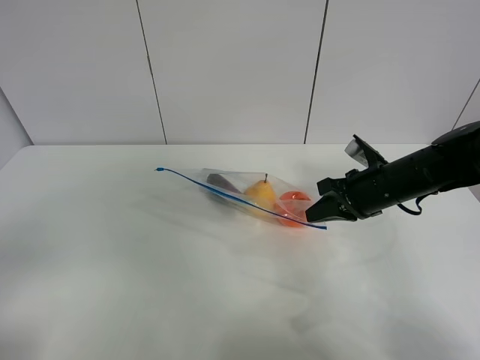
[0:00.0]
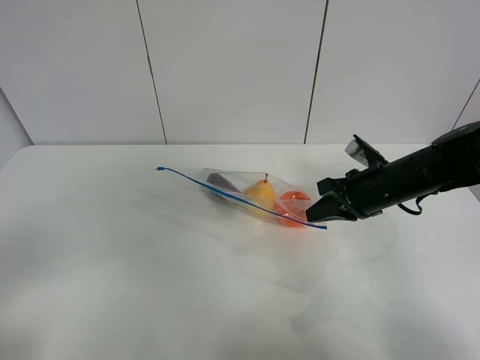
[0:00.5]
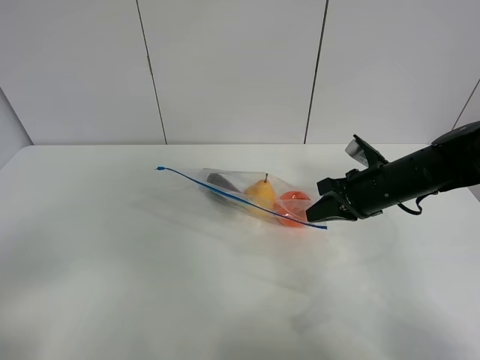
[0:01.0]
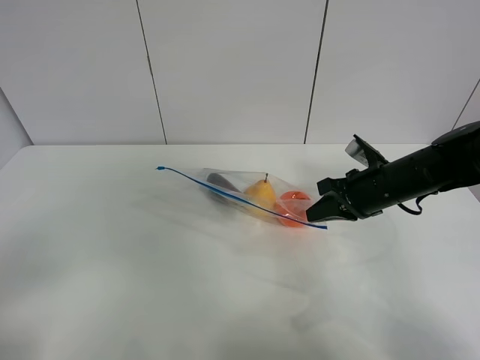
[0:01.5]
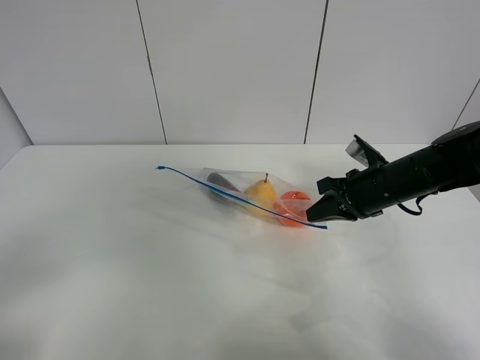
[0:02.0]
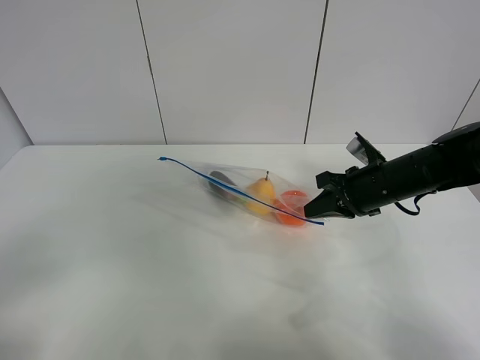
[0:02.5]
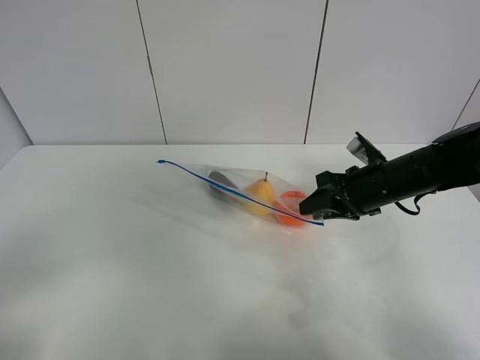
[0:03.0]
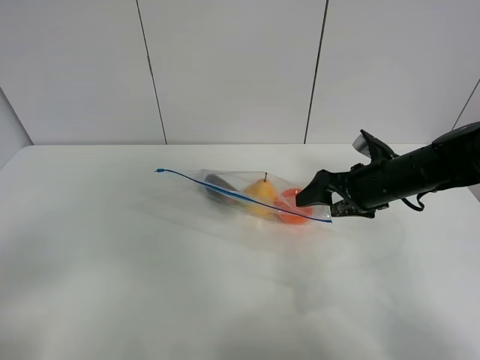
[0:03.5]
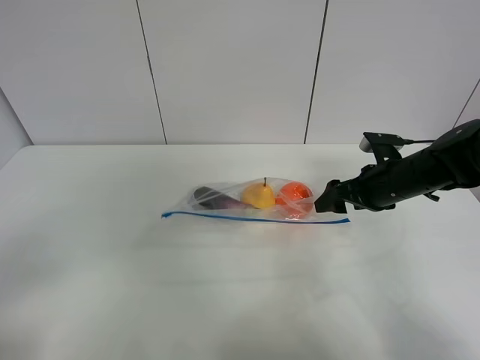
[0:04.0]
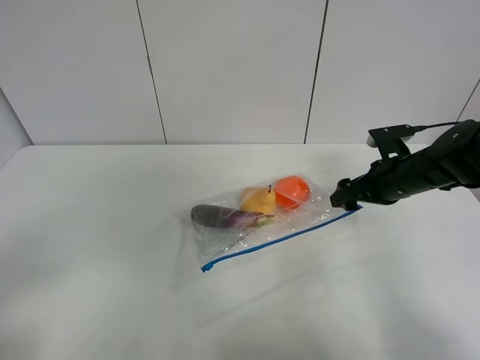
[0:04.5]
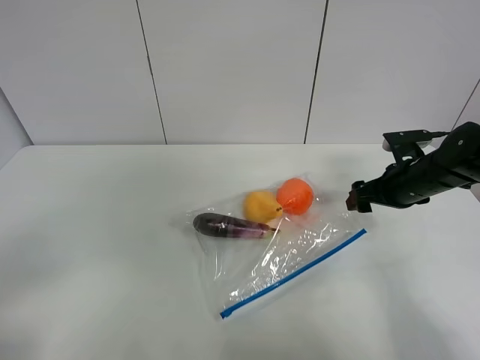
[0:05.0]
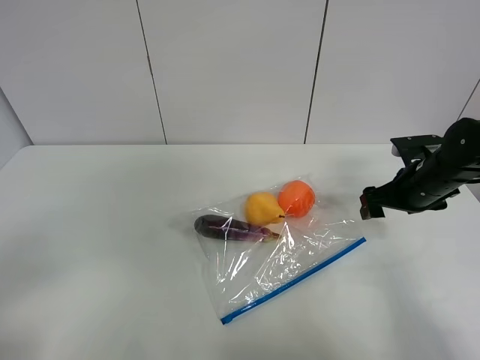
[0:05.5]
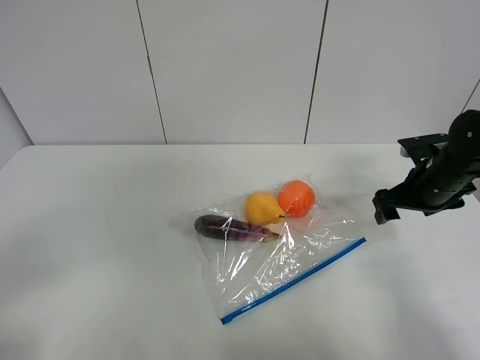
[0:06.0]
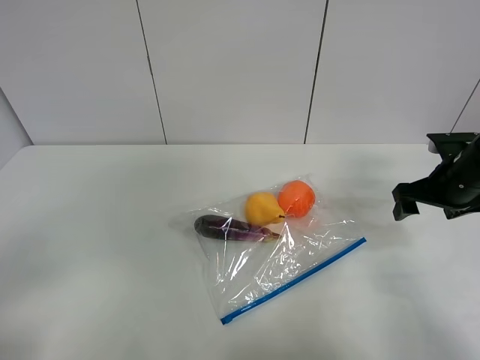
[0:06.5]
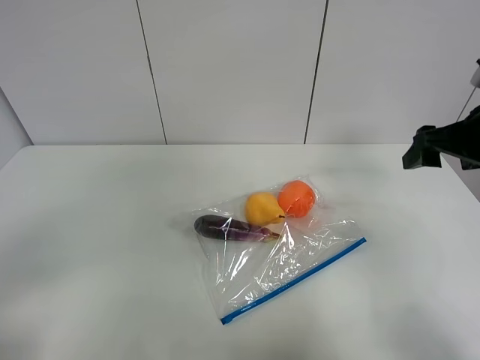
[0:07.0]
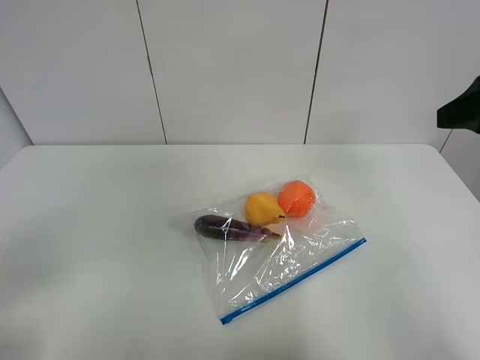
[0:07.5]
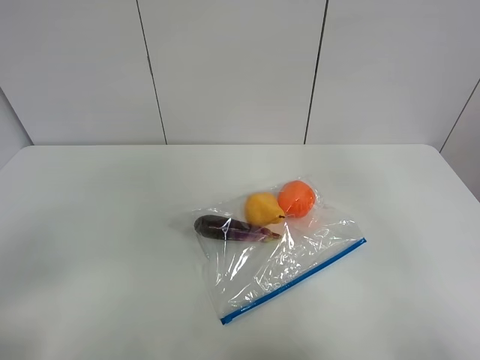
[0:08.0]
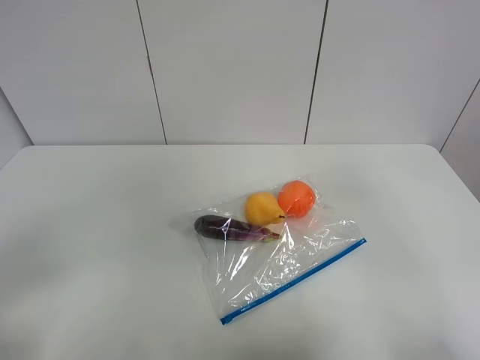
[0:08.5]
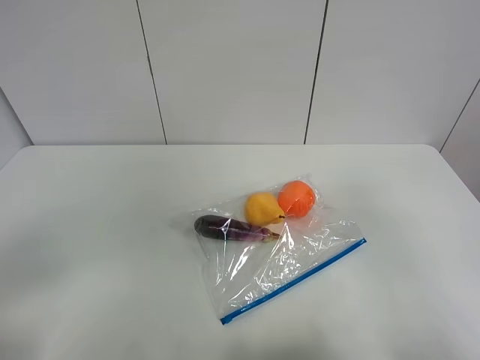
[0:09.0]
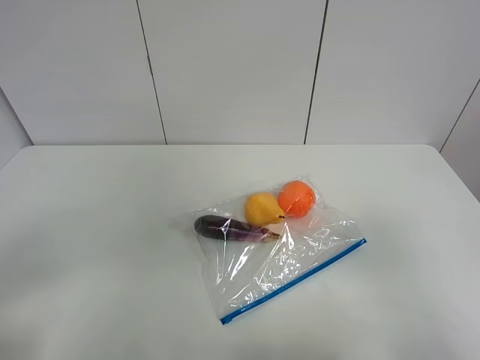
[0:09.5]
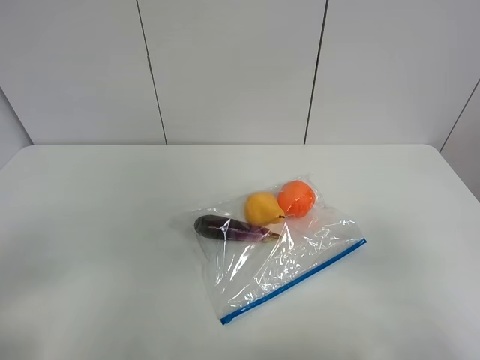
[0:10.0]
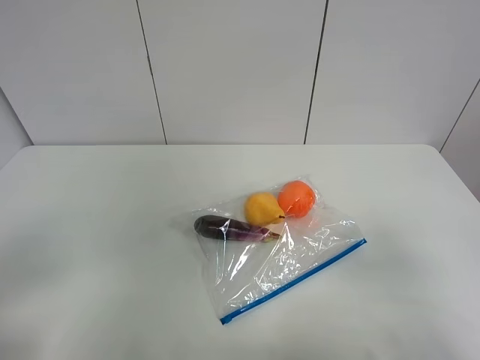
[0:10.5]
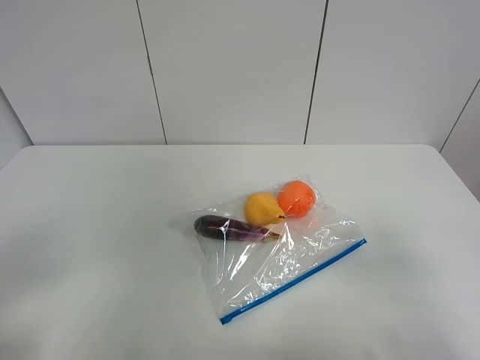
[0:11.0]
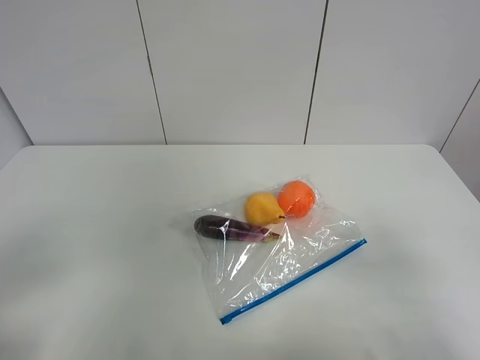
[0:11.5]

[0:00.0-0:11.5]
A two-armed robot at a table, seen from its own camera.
Step, 0:00.0 to 0:05.0: Place the fruit bag with right gripper.
0:02.0 to 0:04.0: The right gripper opens.
0:04.0 to 0:06.0: The right gripper goes some 5 cm to the right.
0:06.0 to 0:07.5: The right gripper travels upward and backward by approximately 25 cm.
0:07.5 to 0:09.5: The right gripper moves backward, about 20 cm.

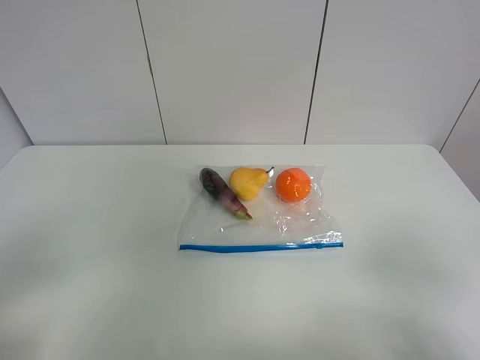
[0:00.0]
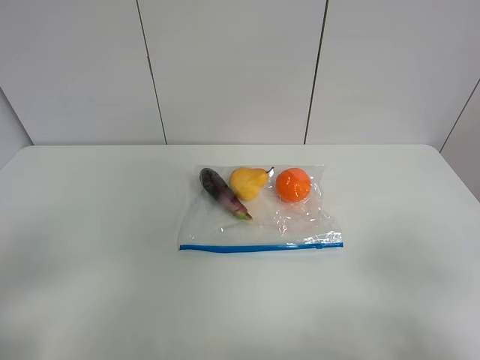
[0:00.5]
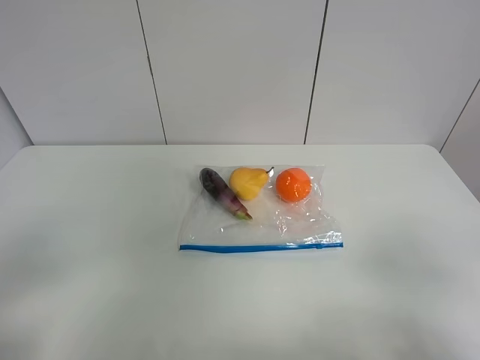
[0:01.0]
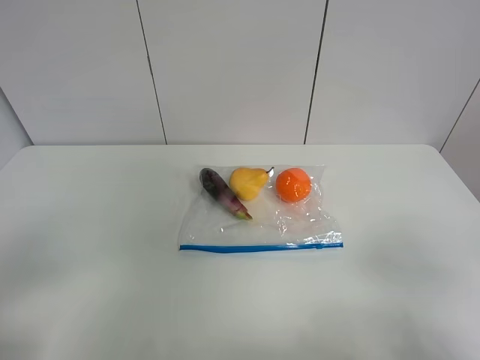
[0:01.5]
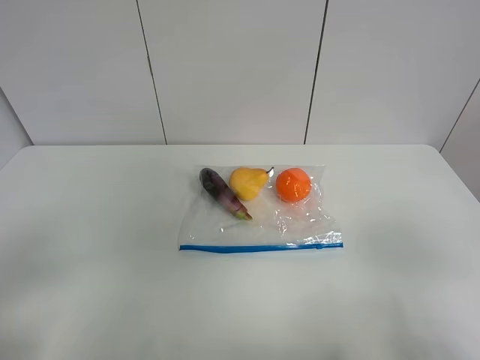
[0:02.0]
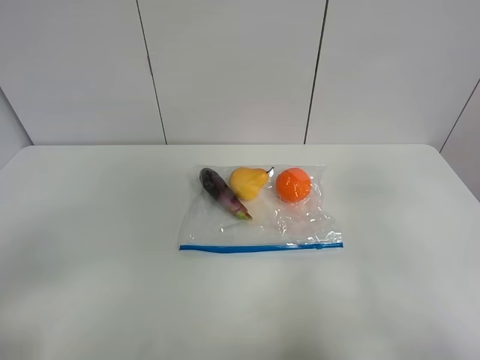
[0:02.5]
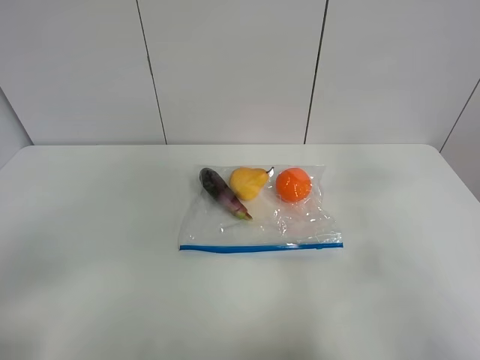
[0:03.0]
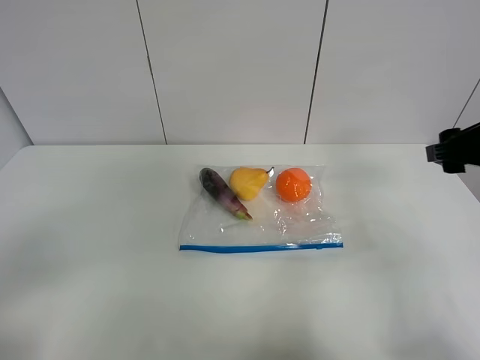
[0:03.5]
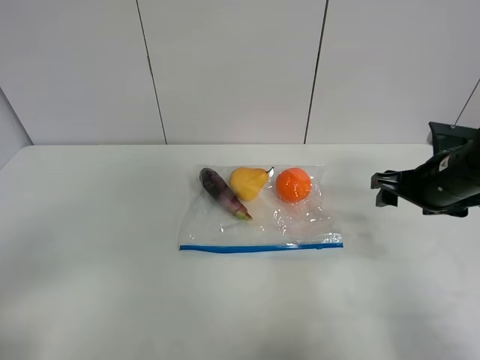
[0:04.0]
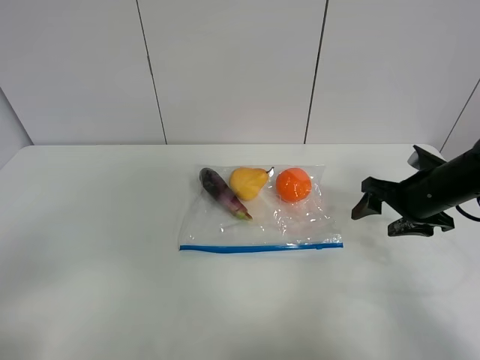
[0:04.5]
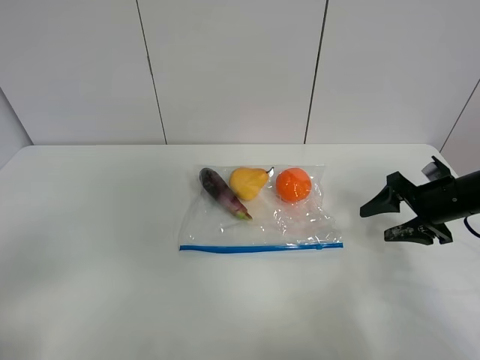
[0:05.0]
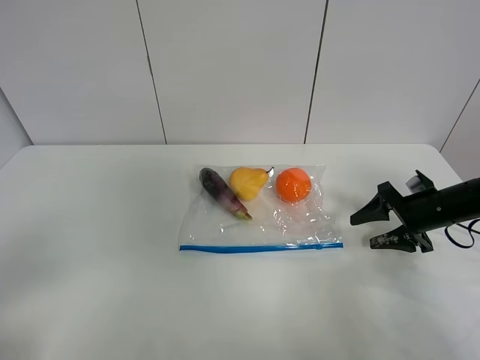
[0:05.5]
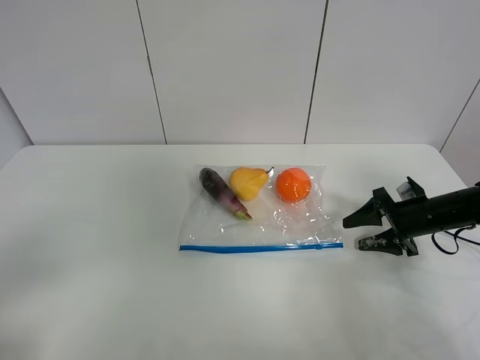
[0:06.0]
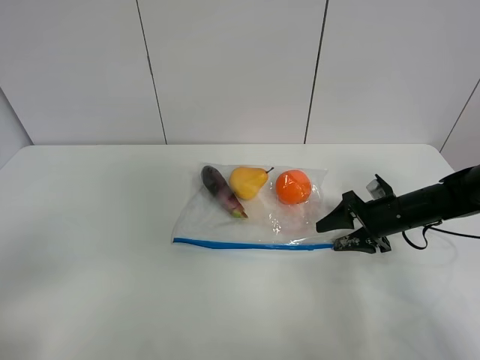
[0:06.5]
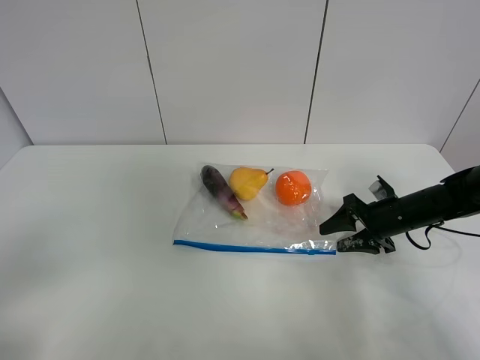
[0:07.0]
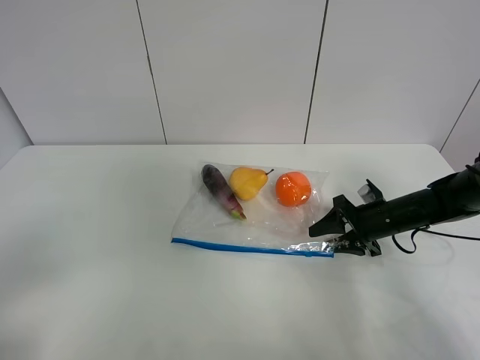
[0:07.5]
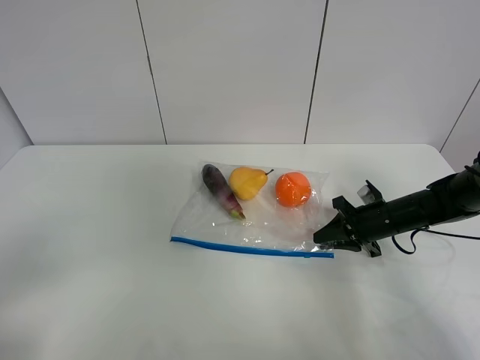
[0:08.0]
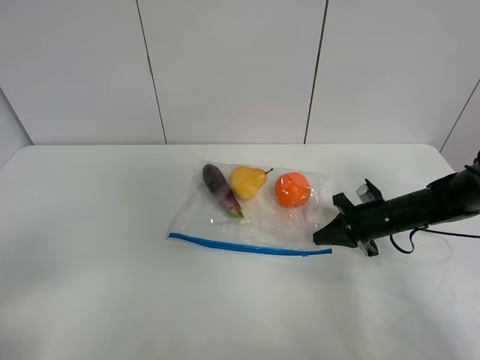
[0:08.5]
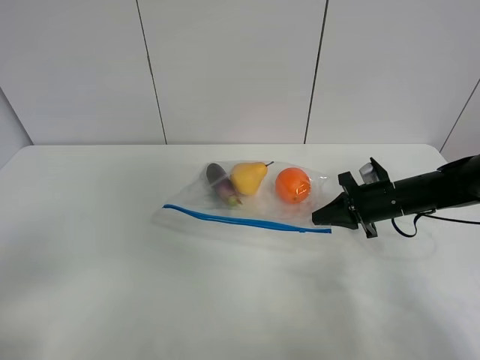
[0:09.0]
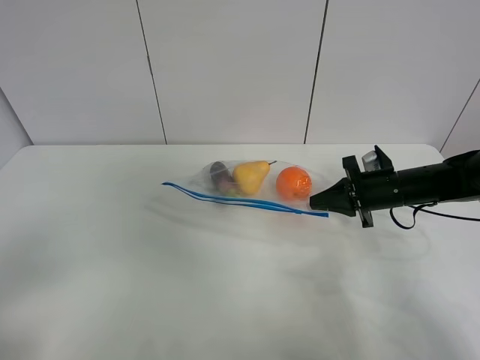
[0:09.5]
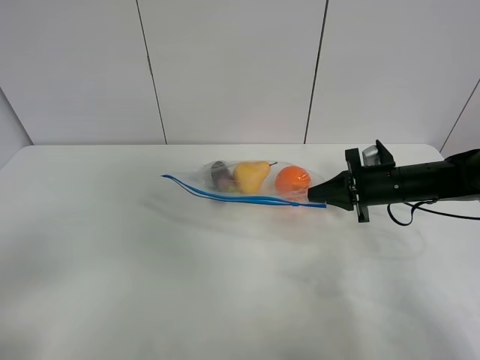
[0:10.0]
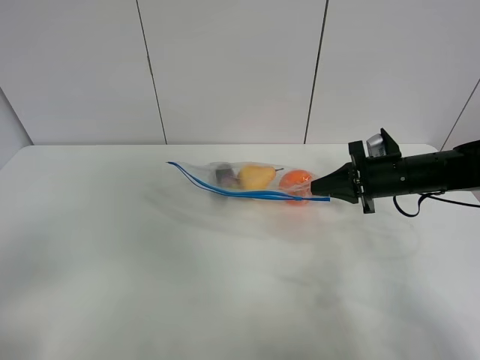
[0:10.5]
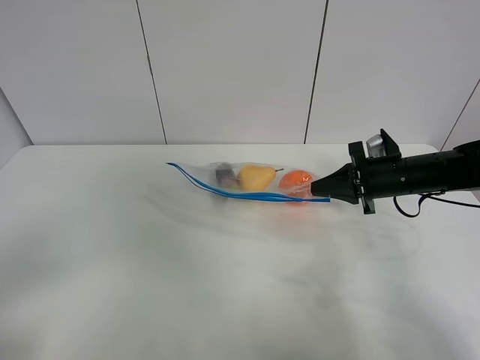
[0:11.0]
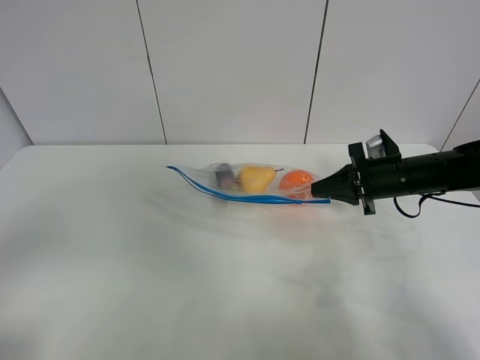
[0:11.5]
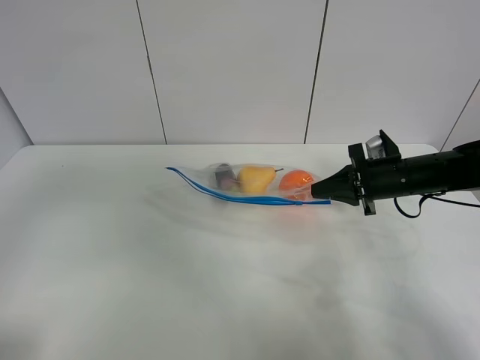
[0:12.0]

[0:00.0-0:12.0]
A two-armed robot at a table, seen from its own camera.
Step, 0:00.0 to 0:08.0: Grasp the fruit bag with right gripper.
Step, 0:08.5 to 0:10.5: Lift the fruit bag with your right gripper.
0:02.0 to 0:04.0: The right gripper goes about 30 cm forward and downward.
0:04.0 to 0:06.0: The right gripper is displaced downward and to the right by about 10 cm.
0:06.0 to 0:08.0: The right gripper moves to the left, roughly 5 cm, and closes its fingers.
0:08.0 to 0:10.0: The right gripper heads upward, covering some 5 cm.
0:10.0 to 0:12.0: The left gripper goes roughly 15 cm forward and upward.

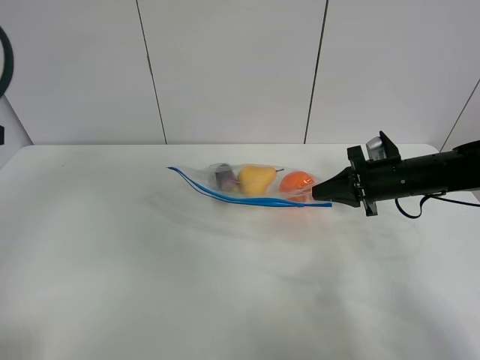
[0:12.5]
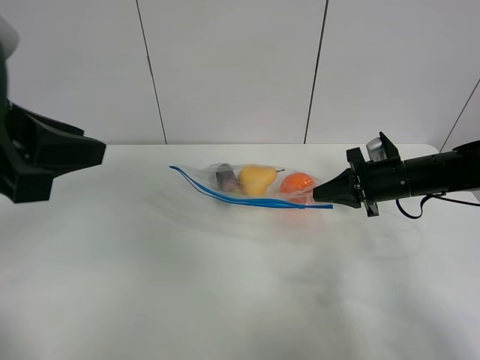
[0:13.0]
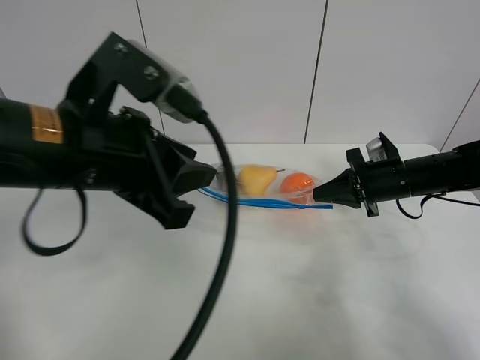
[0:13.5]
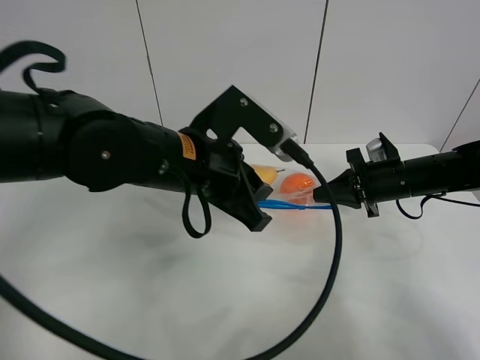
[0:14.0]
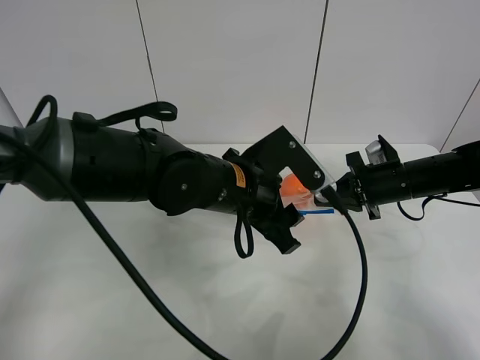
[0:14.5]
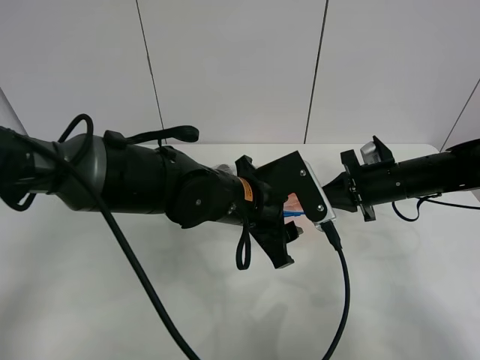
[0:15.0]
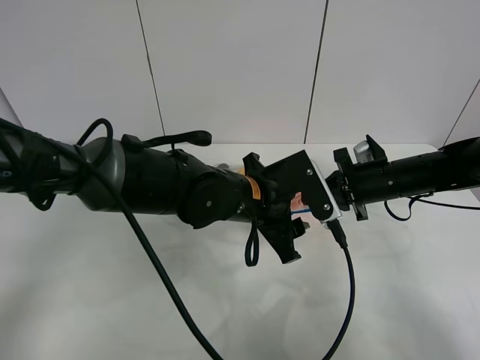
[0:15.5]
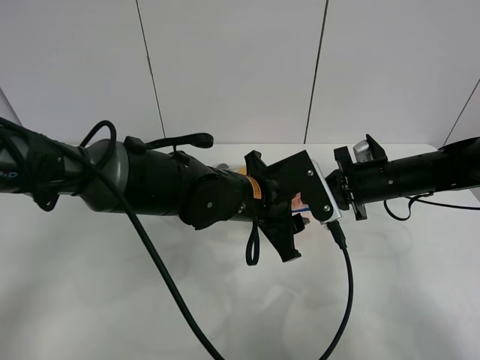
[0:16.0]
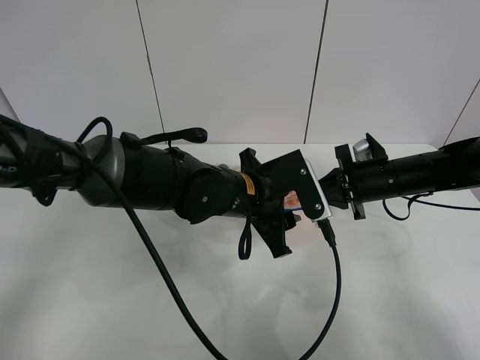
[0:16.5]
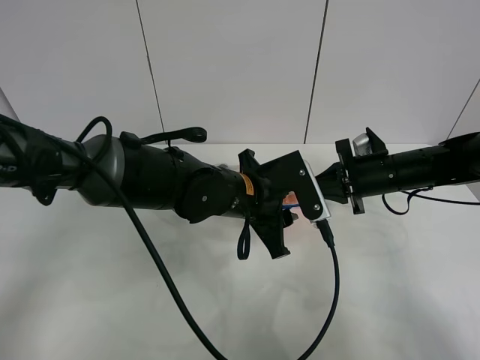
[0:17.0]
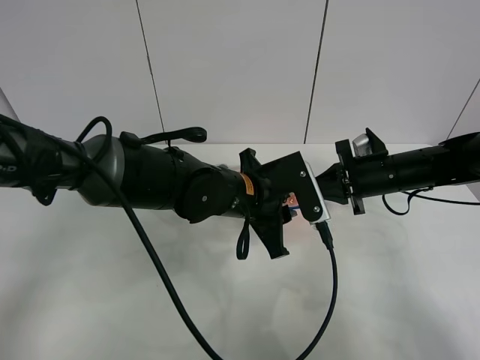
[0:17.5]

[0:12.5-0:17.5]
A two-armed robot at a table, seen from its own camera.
0:12.5 to 0:15.0: The left gripper is displaced to the right and downward by some 35 cm, and opens up.
0:15.0 to 0:17.5: The left gripper closes up.
